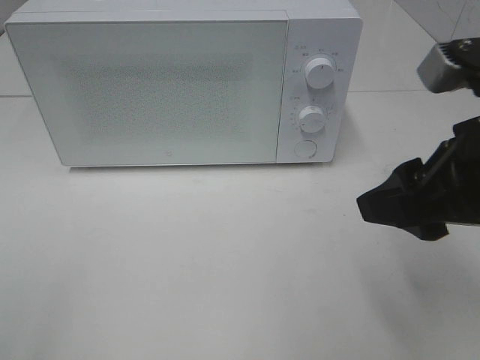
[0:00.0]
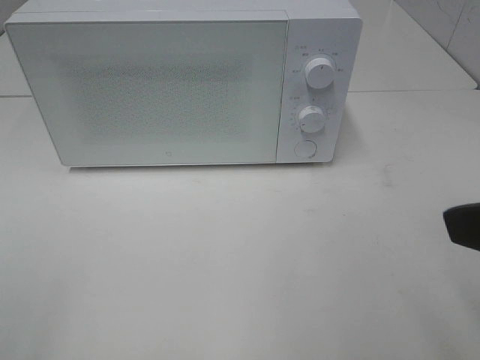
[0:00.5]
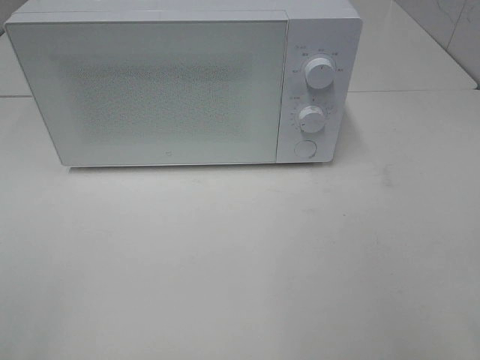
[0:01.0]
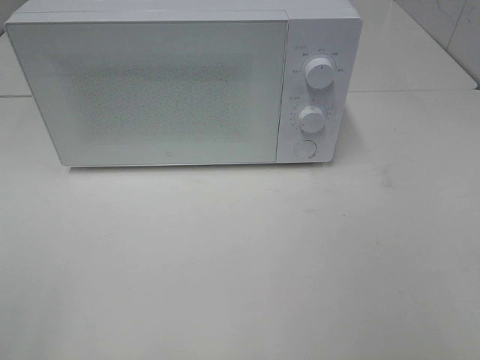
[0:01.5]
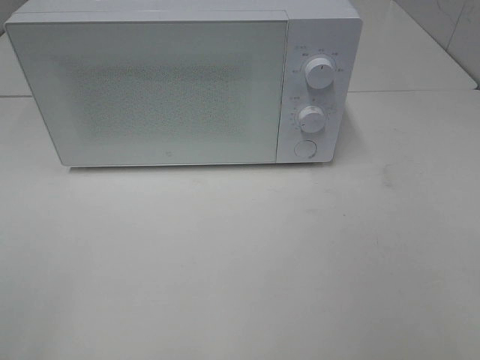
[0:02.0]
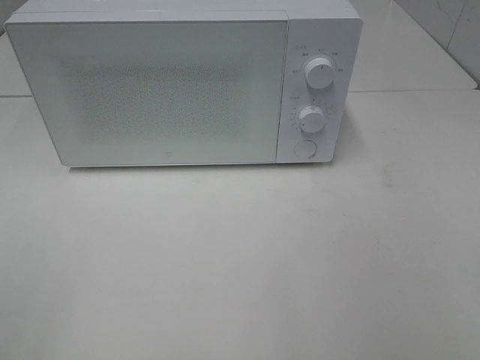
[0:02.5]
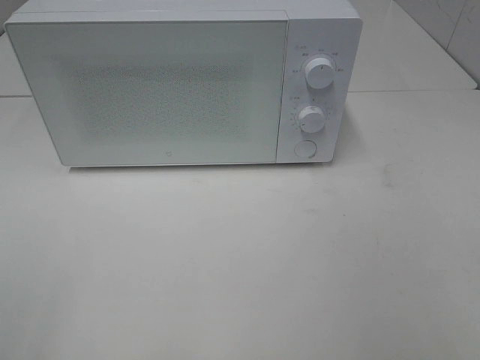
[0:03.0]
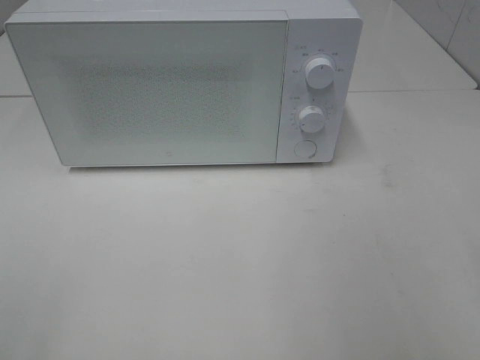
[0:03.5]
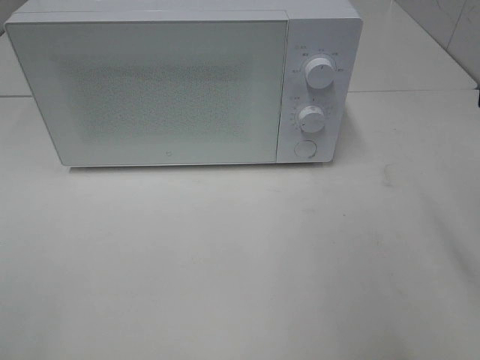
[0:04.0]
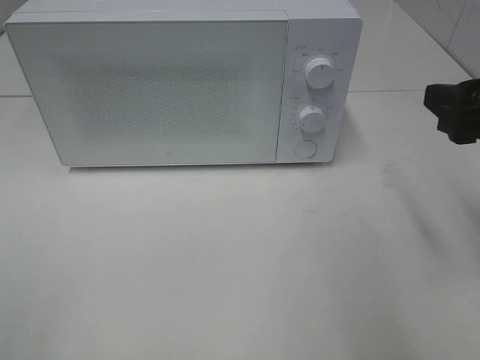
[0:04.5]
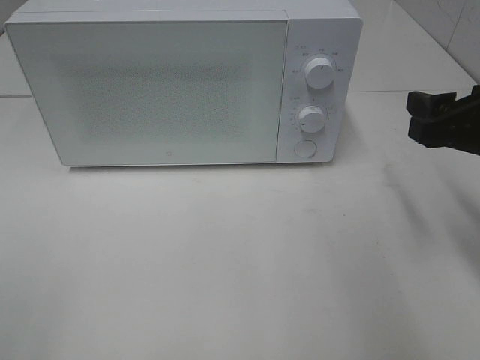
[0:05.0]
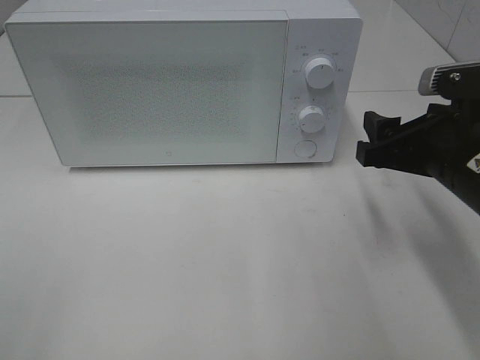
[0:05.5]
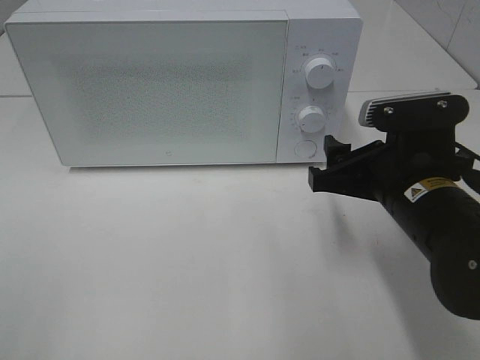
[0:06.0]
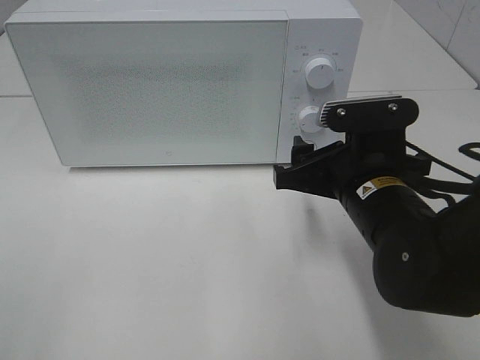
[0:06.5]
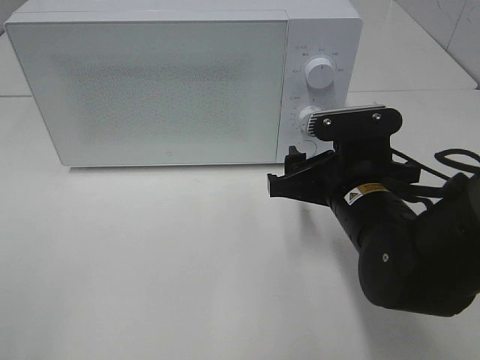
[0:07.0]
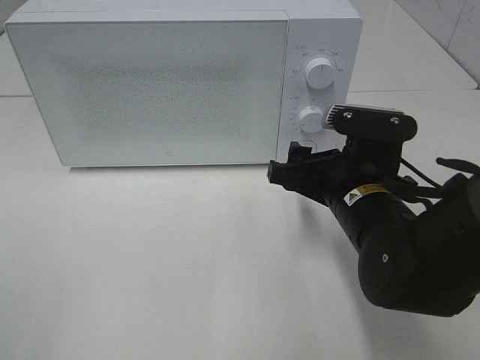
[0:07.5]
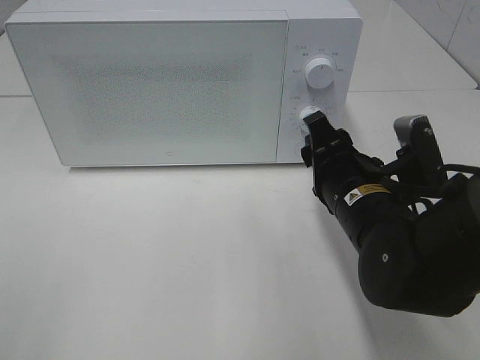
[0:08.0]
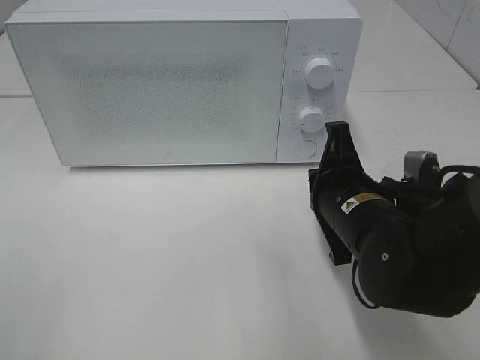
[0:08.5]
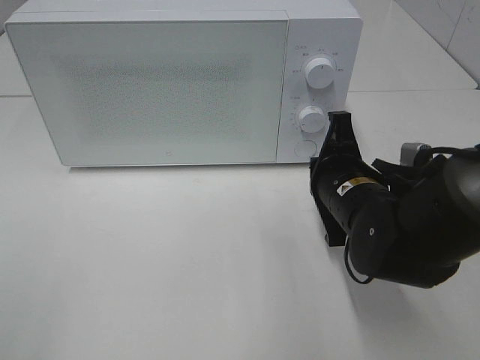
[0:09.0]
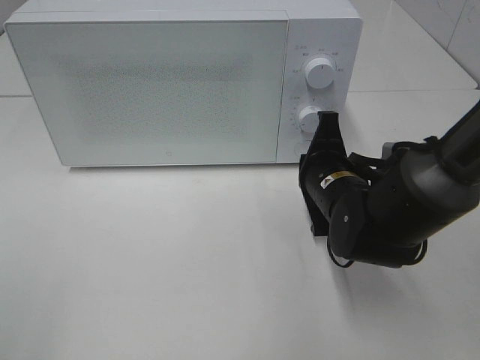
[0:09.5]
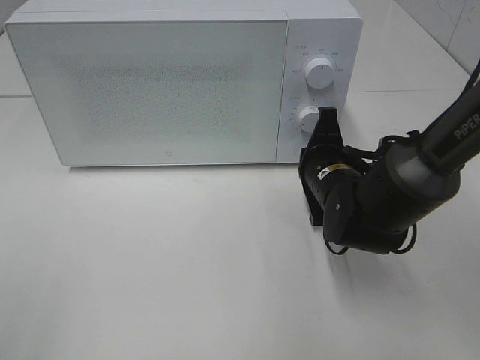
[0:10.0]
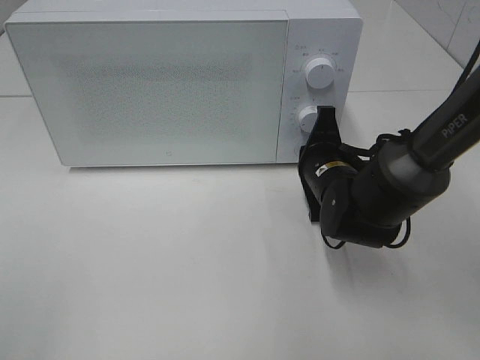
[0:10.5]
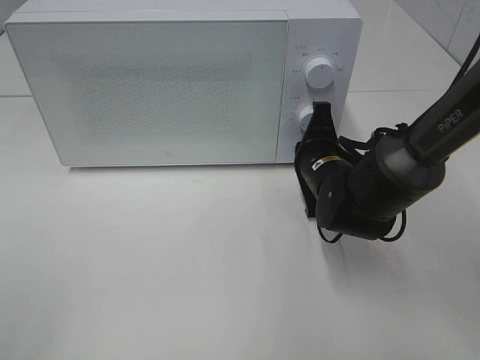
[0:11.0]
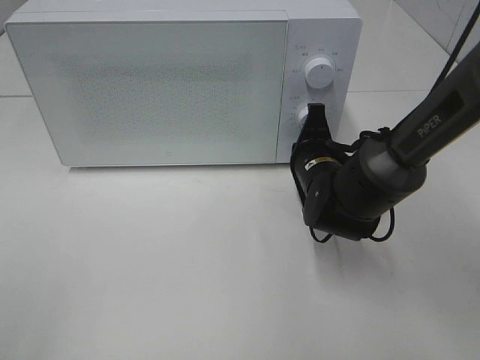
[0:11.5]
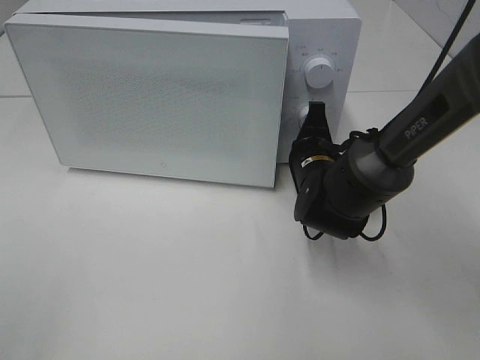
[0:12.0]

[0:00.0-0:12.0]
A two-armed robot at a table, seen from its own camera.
Task of the whole recording: Heat the burger.
0.0 to 2.0 s: The right gripper heads backward and to the right, covering about 20 cm.
4.0 to 6.0 s: The right gripper travels downward, to the left and forward by about 20 cm.
6.0 to 8.0 s: The right gripper shifts by roughly 5 cm.
8.0 to 10.0 s: The right gripper shifts about 10 cm forward, and closes.
10.0 to 12.0 s: The grippers stay close to where they were, moving slightly.

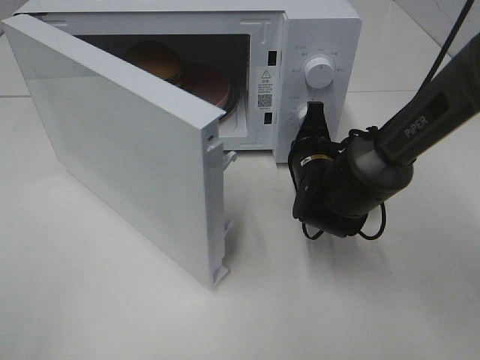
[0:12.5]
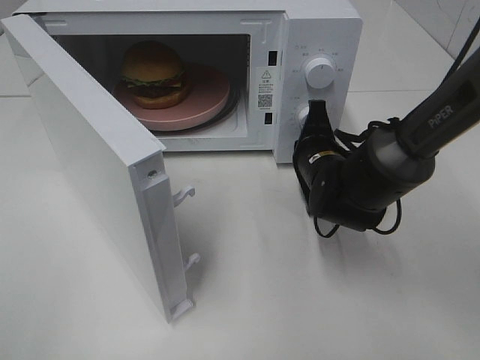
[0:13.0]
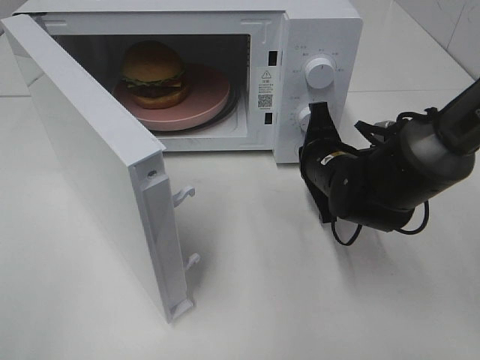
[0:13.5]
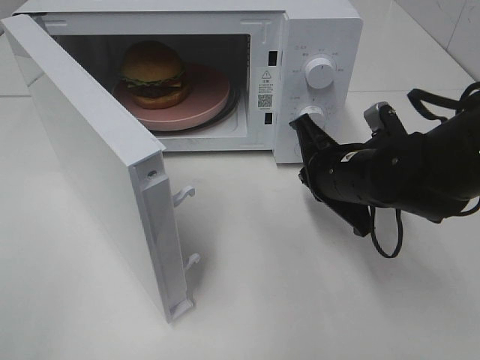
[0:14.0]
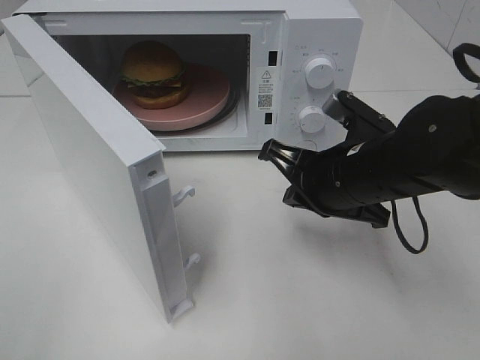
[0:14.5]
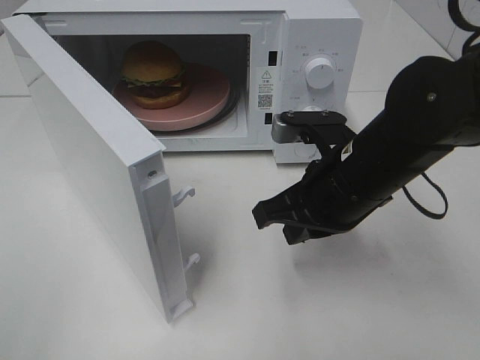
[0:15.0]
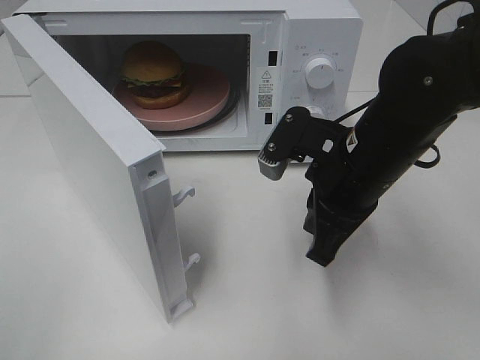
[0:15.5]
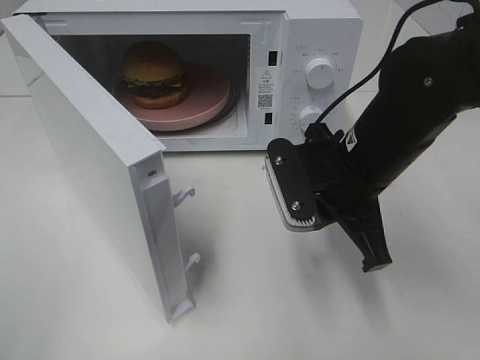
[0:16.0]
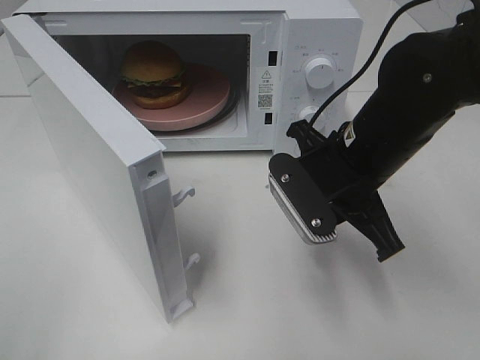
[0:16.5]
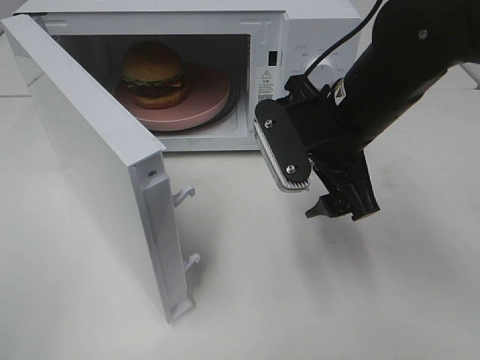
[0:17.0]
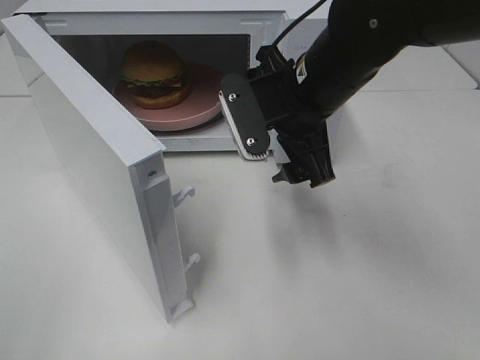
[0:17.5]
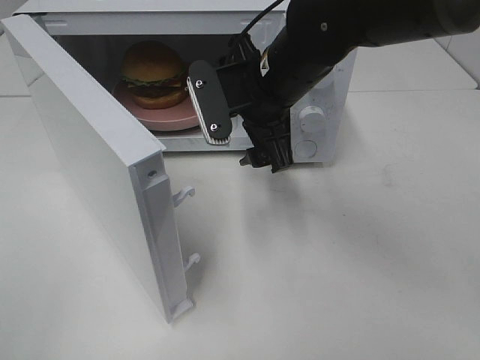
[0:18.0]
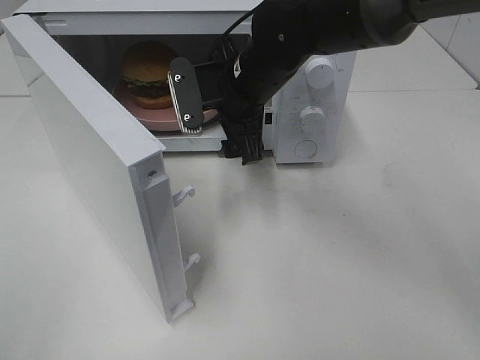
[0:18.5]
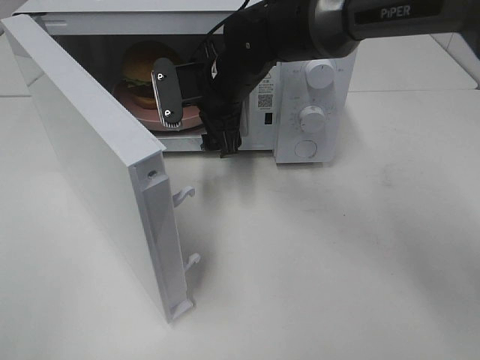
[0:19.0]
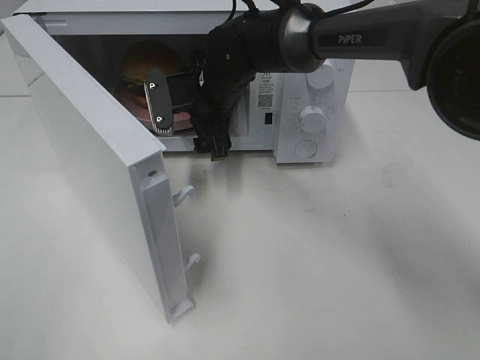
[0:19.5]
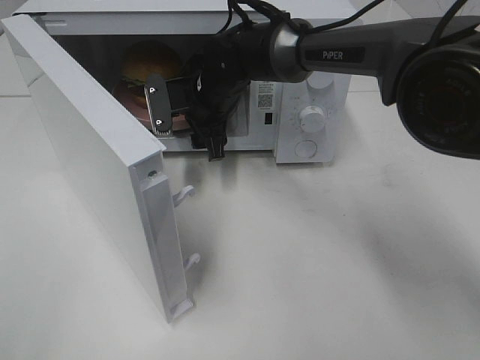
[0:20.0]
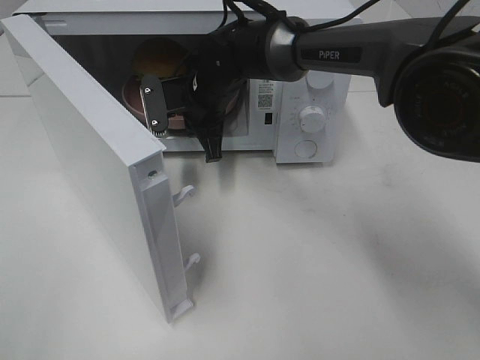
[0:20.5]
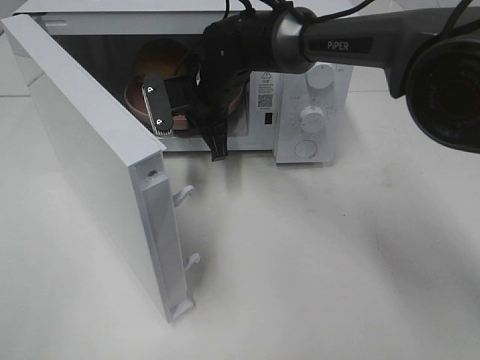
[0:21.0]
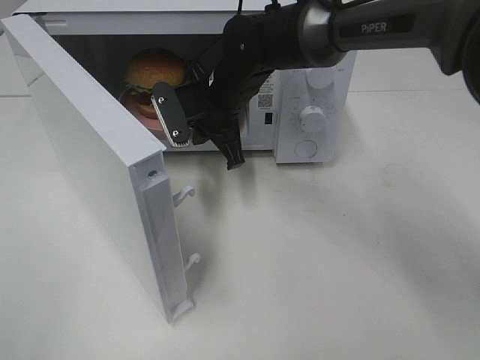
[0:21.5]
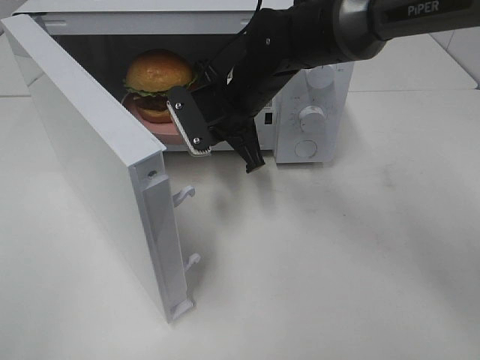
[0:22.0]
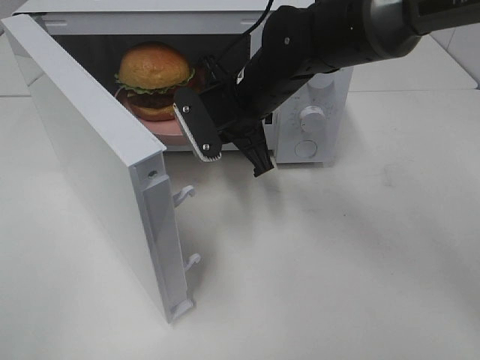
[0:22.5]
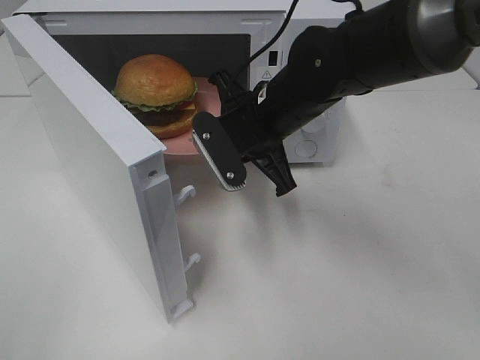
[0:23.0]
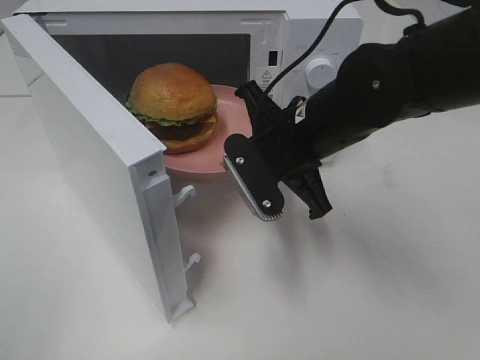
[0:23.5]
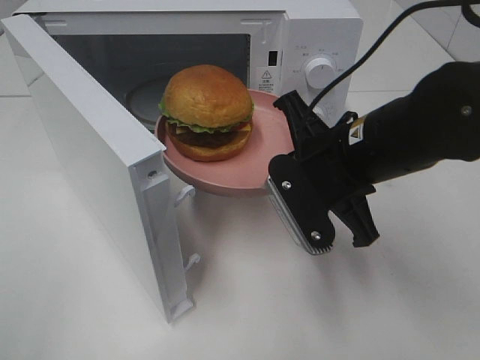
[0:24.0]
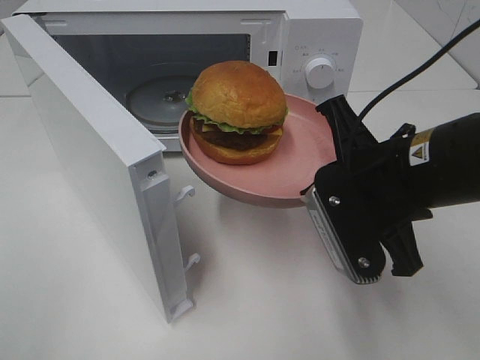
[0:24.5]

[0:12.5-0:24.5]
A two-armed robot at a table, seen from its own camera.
Task of the whole recording: Heat the burger.
Step, 14.0 to 20.0 s: Right hand: grab the plate with the hamburger.
12.5 to 14.5 s: The right gripper shifts some 10 cm backward and upward.
16.5 to 18.5 s: The right gripper is displaced forward and to the left by approximately 15 cm, and opens its fingers.
18.5 to 20.5 s: The right gripper shifts roughly 10 cm forward and downward, and closes up.
20.5 to 22.5 s: The right gripper heads backward and to the right, covering about 10 cm.
22.5 to 24.5 s: The right gripper travels backward and to the right by about 20 cm.

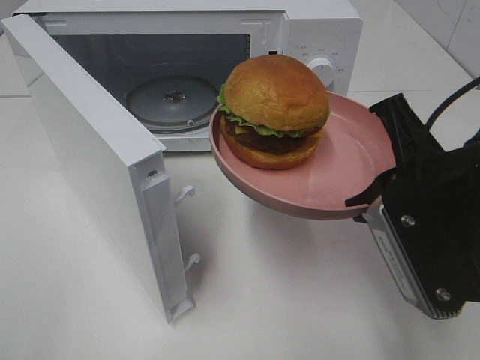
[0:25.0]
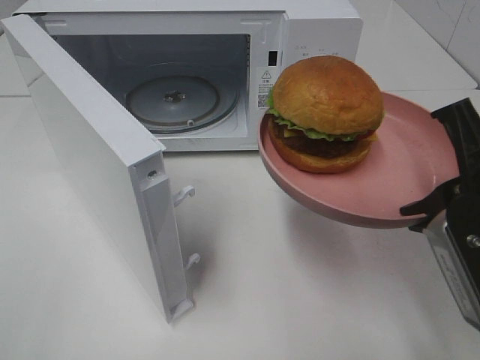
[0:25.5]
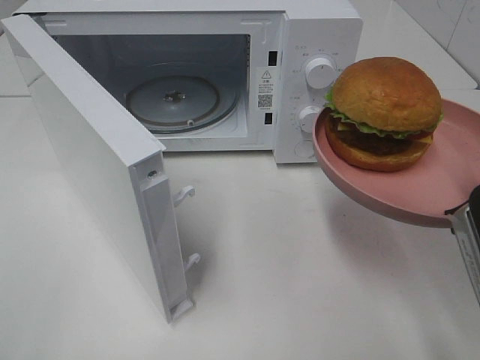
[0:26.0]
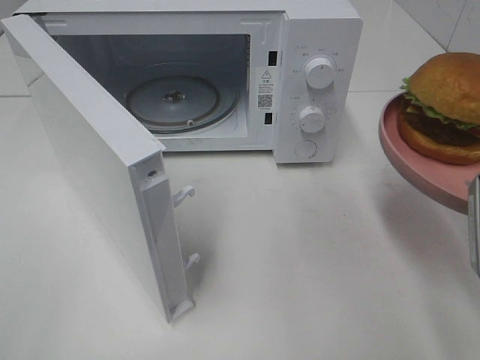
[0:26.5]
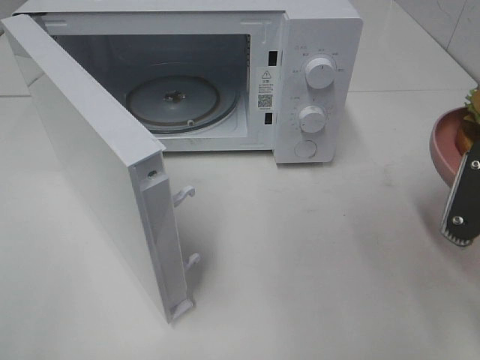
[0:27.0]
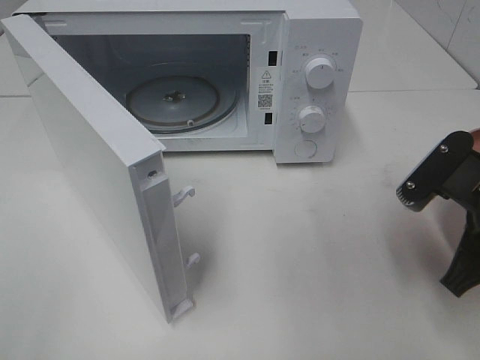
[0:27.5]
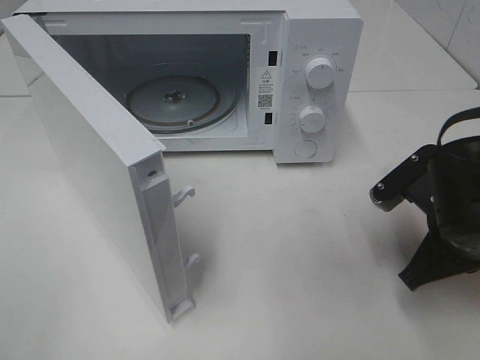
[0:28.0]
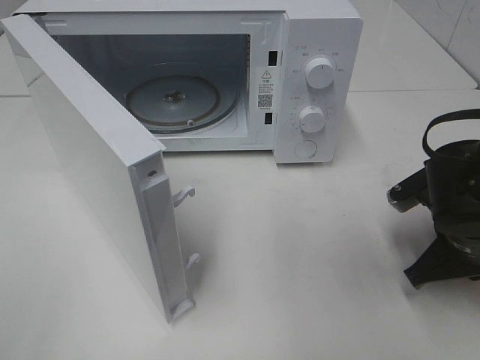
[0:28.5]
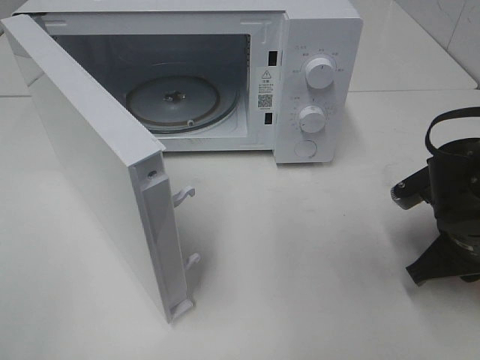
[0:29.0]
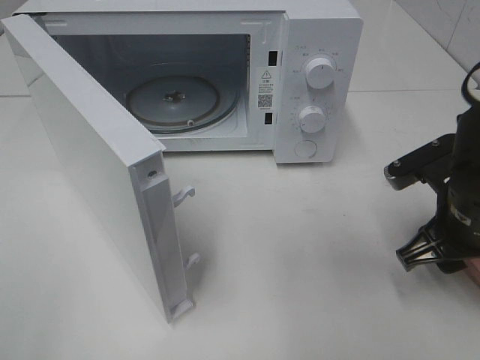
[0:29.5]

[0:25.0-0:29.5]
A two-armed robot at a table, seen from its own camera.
Task of the whole recording: Heat the burger.
Step, 25.0 to 29.0 s: Right hand: place the plate on the table.
25.0 to 27.0 s: The right gripper is displaced to the right by some 5 cm.
27.0 to 29.5 s: The right gripper is displaced forward and downward by approximately 10 cm, and opens.
